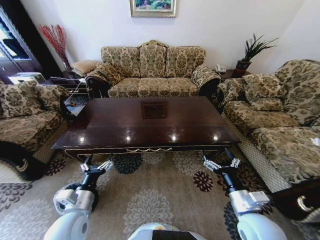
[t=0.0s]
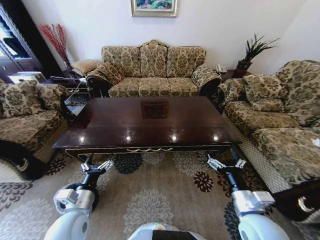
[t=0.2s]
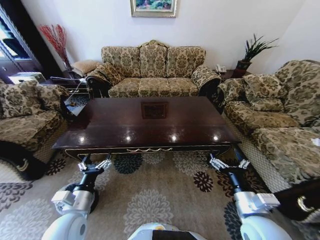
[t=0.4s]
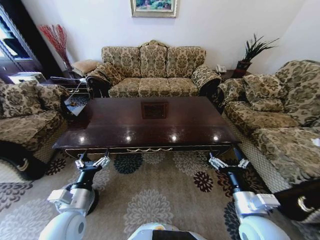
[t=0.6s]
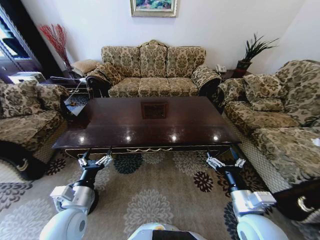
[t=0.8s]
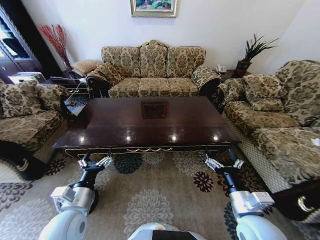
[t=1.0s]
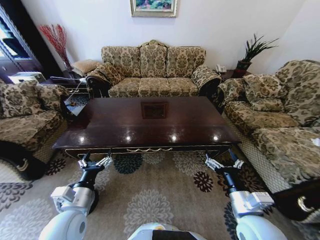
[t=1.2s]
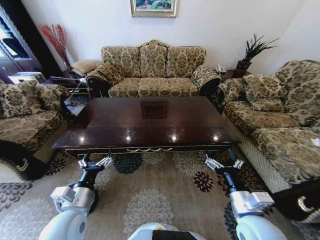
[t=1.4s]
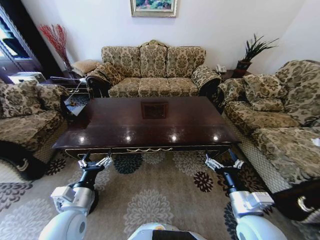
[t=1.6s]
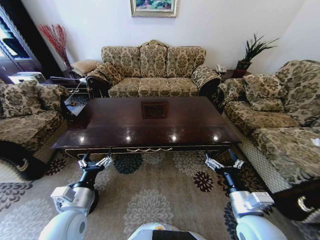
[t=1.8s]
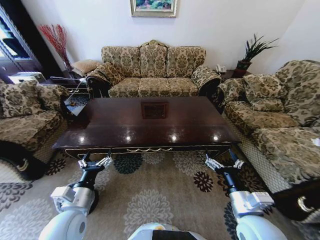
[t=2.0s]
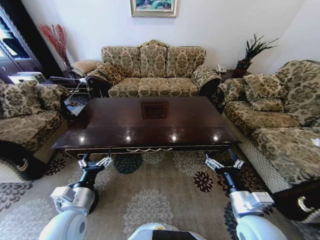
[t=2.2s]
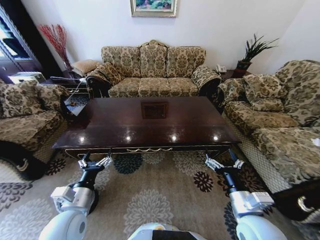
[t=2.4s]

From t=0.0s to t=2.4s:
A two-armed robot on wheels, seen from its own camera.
Task of the whole recording: Move to the front of the table and place the trash on the table into the trash bin.
From t=0.0s to t=1.2s: The grippers move only a little.
From t=1.2s to t=2.4s: Both grippers stay put.
